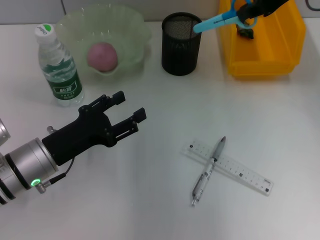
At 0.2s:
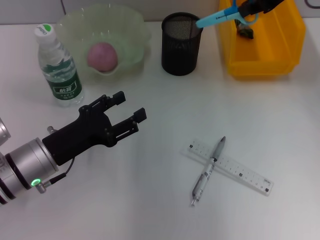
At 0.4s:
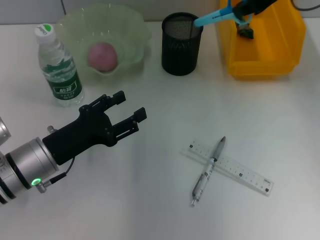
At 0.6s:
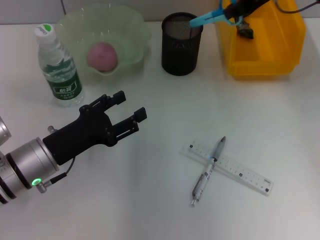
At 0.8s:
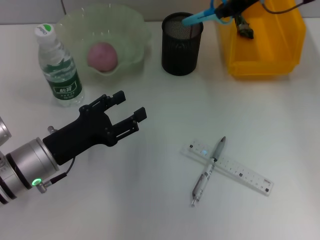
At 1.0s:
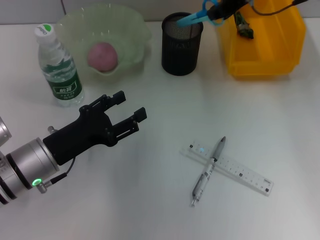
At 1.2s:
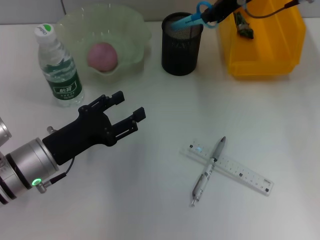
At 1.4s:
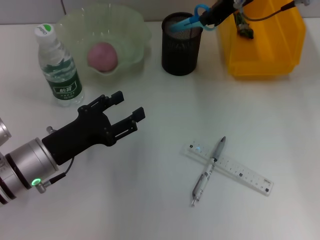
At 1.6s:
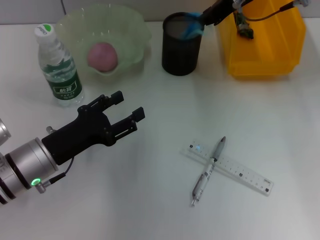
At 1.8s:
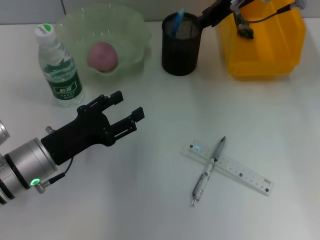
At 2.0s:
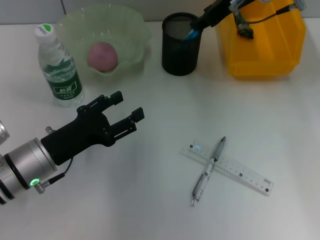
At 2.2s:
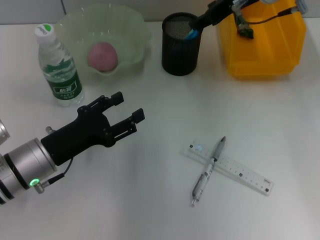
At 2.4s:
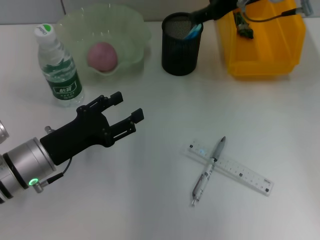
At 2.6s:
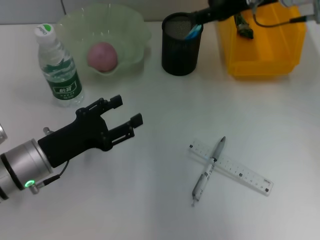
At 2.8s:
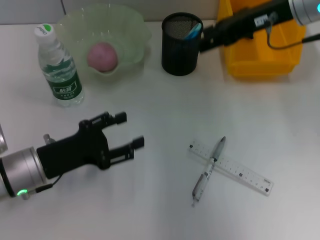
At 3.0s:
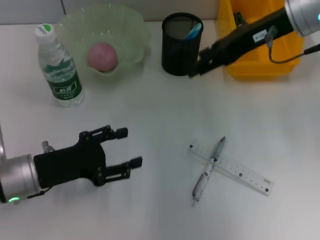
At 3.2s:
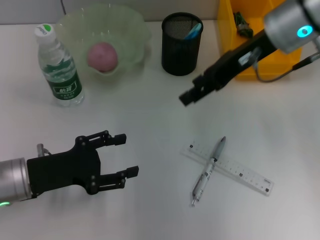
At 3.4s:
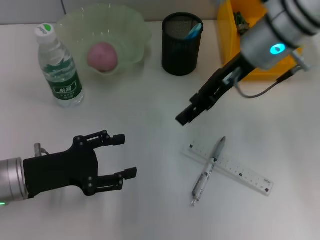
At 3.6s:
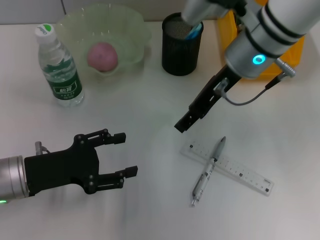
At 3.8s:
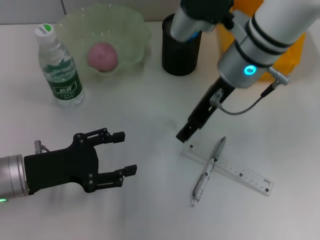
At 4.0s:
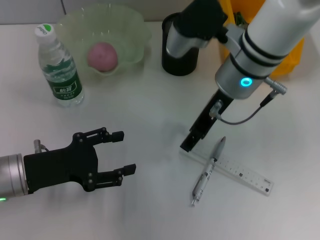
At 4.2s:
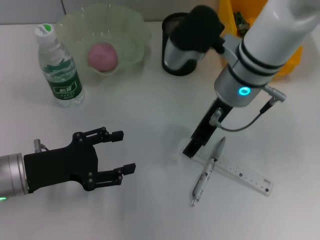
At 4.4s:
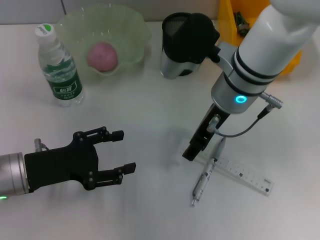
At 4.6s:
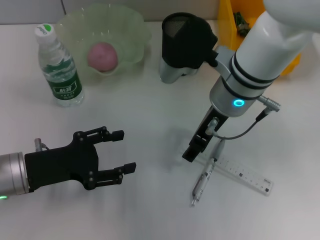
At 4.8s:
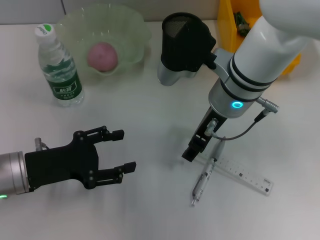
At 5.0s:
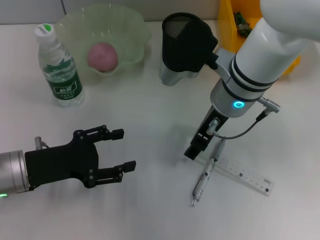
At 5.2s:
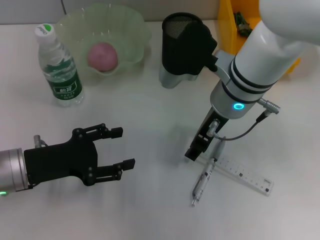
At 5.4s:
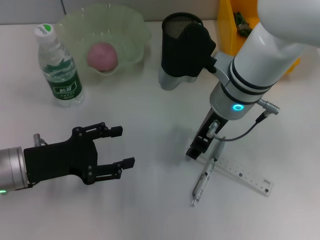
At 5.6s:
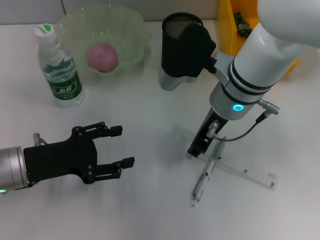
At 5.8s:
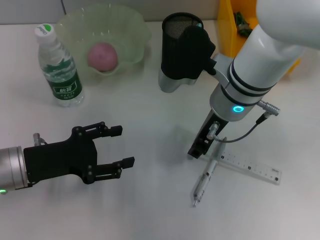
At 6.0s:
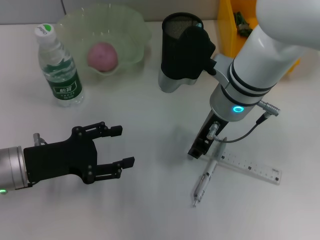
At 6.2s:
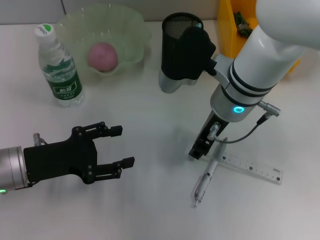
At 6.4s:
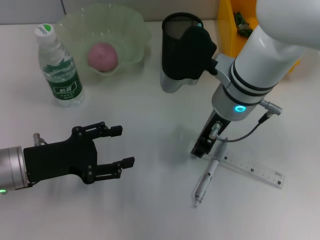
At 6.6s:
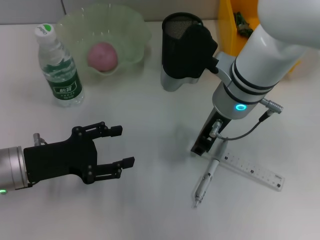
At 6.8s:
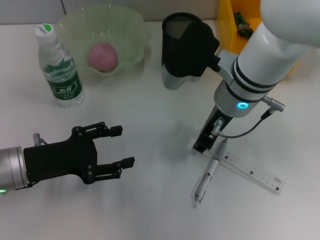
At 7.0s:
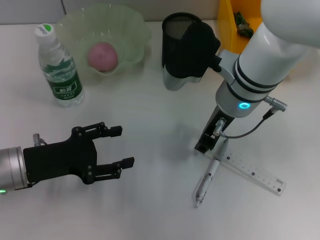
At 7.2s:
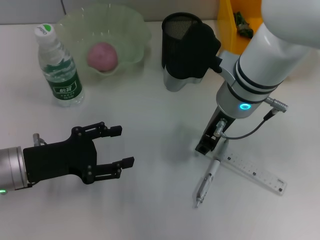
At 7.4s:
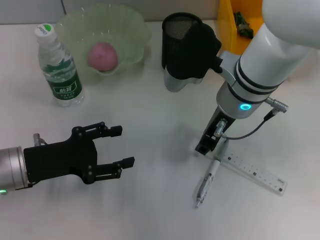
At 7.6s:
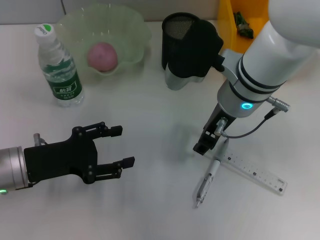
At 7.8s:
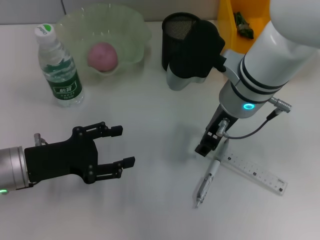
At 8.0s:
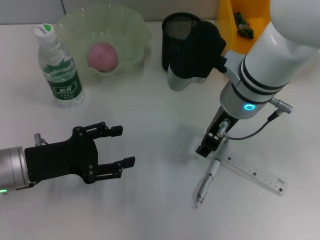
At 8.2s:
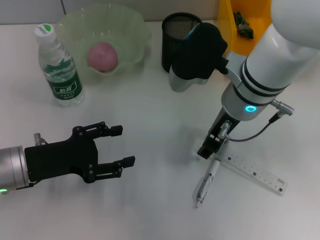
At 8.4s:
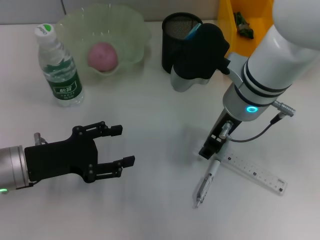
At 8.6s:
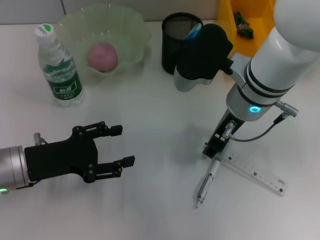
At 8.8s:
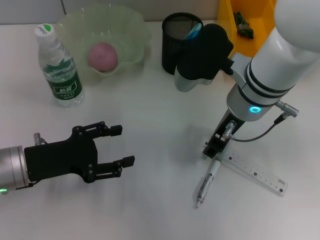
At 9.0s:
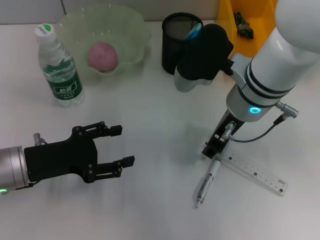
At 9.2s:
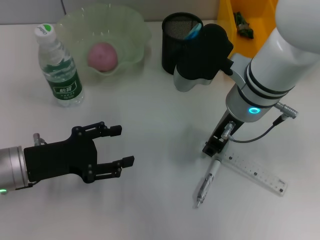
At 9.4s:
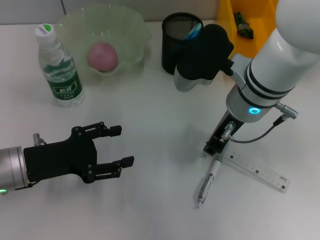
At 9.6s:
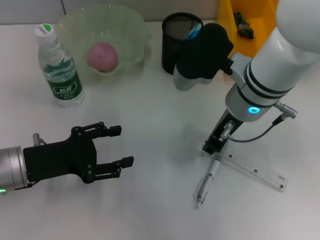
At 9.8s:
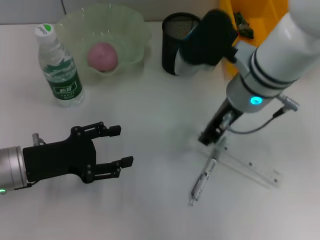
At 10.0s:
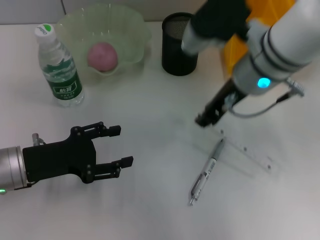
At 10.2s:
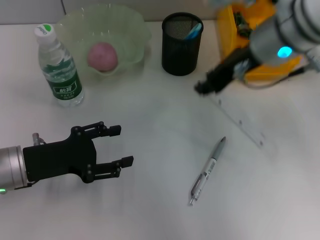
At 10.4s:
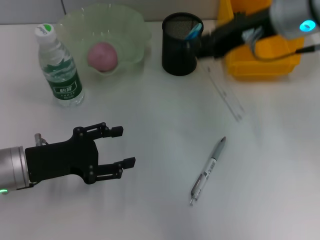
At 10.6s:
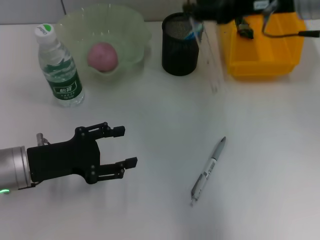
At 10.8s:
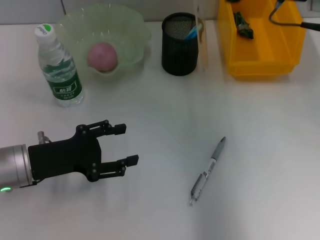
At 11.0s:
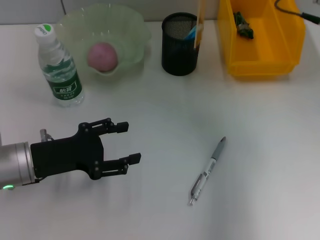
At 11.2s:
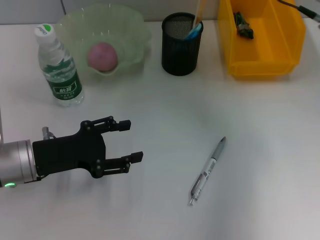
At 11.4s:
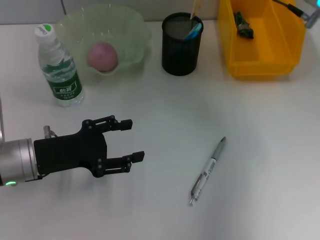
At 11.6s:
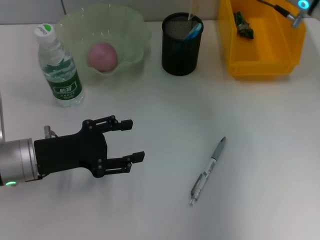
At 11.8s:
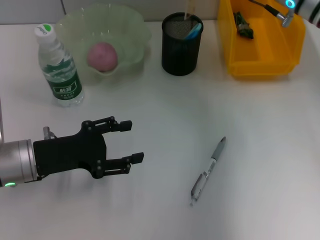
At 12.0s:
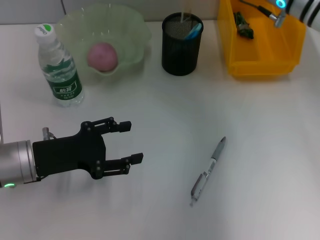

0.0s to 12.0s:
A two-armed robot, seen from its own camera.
Step, 0.0s to 2.4s: Place the blue scissors into the pen holder with the right hand.
Step, 2.6s to 9.4s: Grab the ruler with the right hand.
0.0s to 1.6s: The right gripper is displaced to the left and downward by about 10 cm.
1.6s to 3.0s: The right gripper travels backward by about 5 cm, and opens.
3.0s to 4.4s: The right gripper moves to the left and downward, approximately 15 cm.
4.4s to 6.0s: The right gripper closes up.
6.0s to 7.6s: Both grippers stay put.
7.6s to 9.0s: Neither gripper changes place.
9.0s to 10.4s: The right gripper moves upward and to the right, some 10 cm.
10.4s to 12.0s: The right gripper moves forward and downward, roughly 10 cm.

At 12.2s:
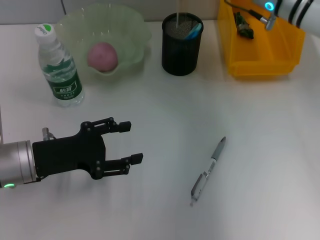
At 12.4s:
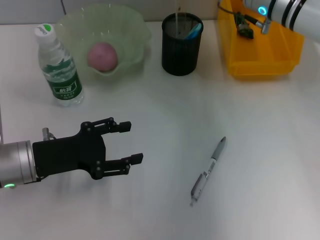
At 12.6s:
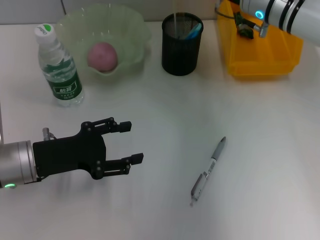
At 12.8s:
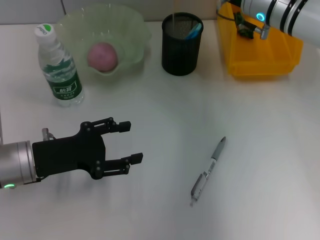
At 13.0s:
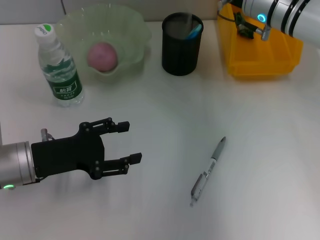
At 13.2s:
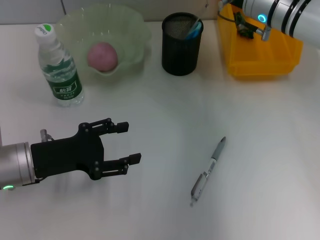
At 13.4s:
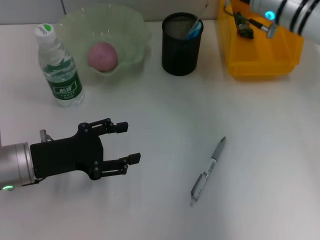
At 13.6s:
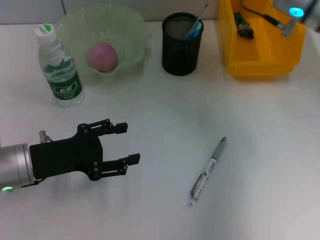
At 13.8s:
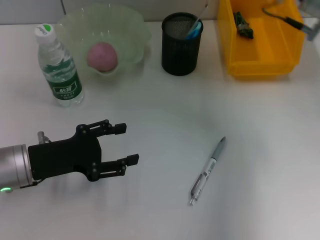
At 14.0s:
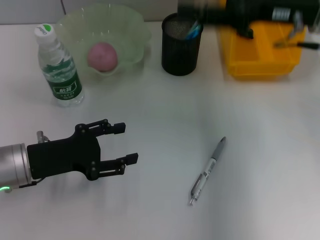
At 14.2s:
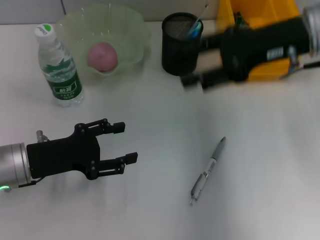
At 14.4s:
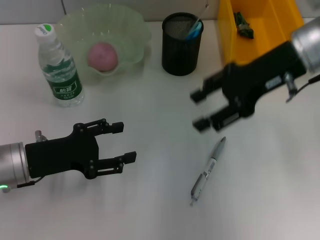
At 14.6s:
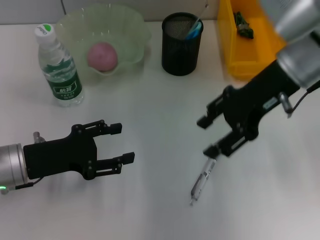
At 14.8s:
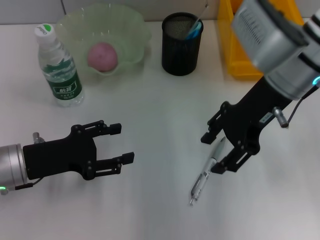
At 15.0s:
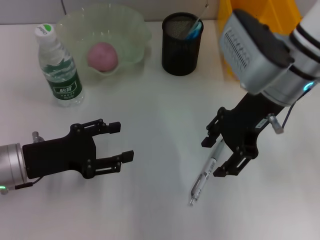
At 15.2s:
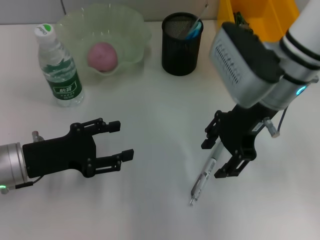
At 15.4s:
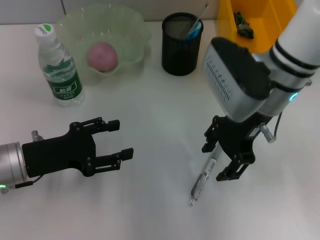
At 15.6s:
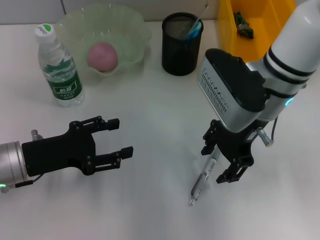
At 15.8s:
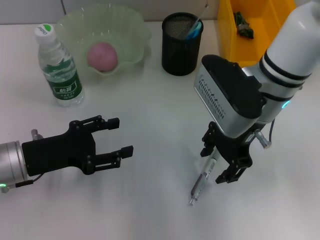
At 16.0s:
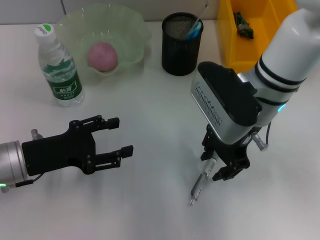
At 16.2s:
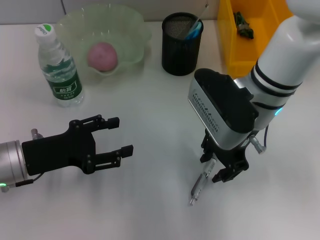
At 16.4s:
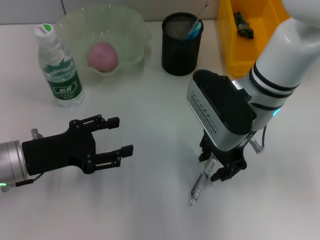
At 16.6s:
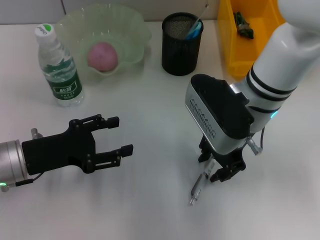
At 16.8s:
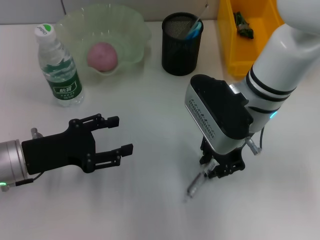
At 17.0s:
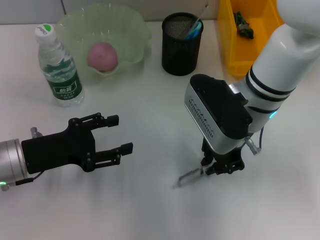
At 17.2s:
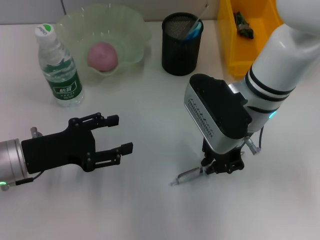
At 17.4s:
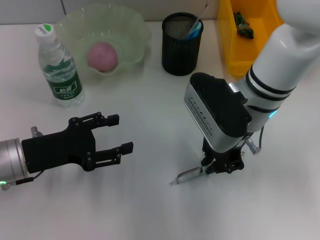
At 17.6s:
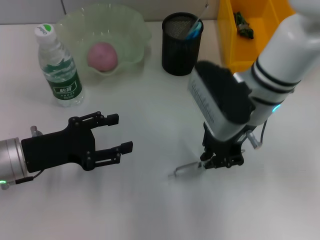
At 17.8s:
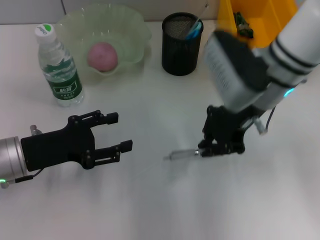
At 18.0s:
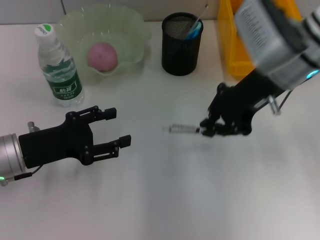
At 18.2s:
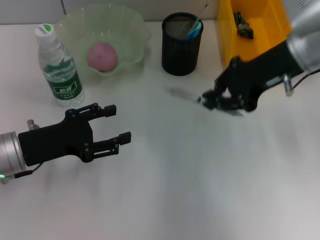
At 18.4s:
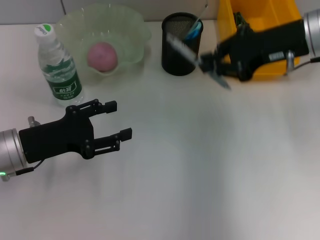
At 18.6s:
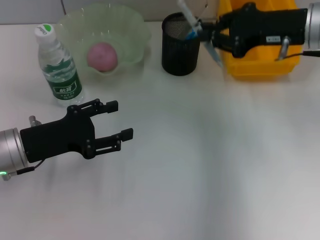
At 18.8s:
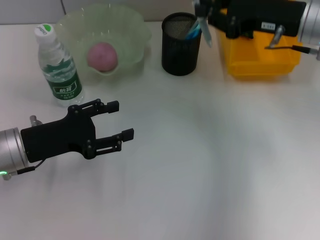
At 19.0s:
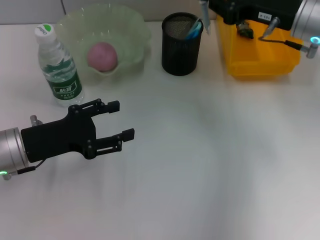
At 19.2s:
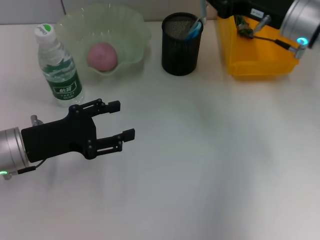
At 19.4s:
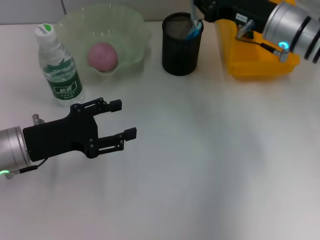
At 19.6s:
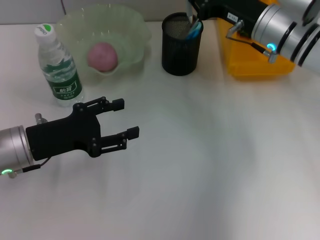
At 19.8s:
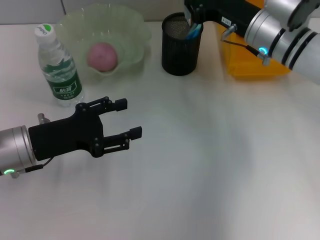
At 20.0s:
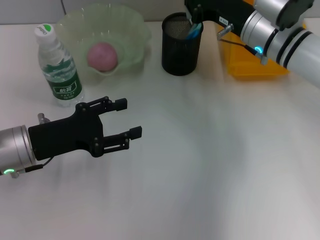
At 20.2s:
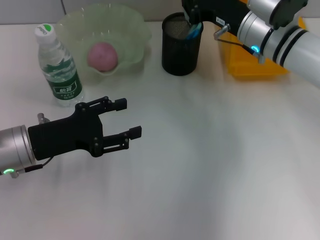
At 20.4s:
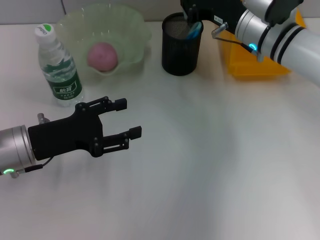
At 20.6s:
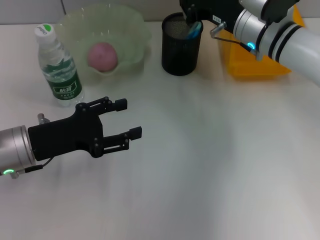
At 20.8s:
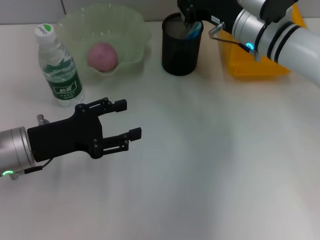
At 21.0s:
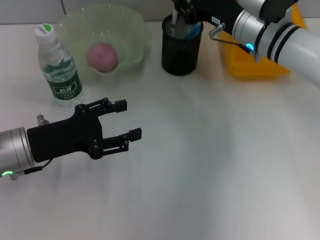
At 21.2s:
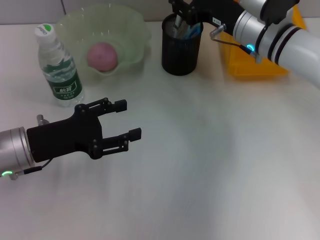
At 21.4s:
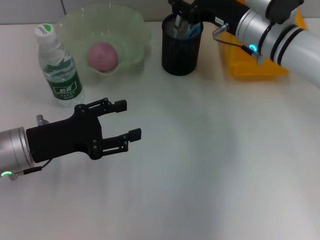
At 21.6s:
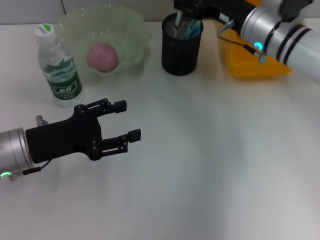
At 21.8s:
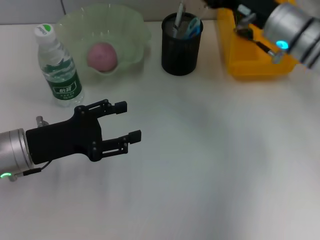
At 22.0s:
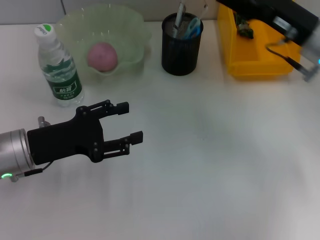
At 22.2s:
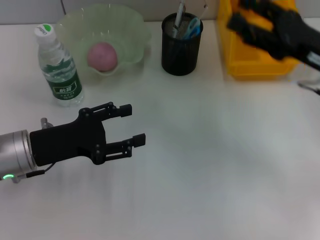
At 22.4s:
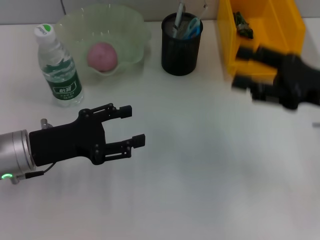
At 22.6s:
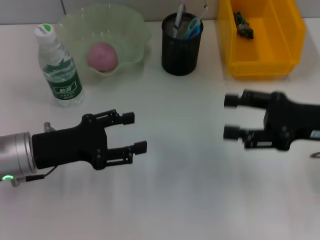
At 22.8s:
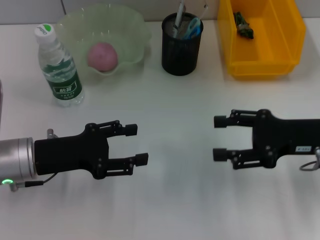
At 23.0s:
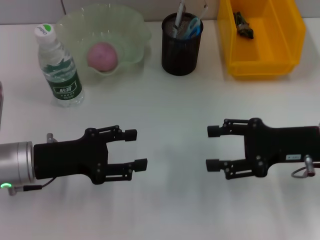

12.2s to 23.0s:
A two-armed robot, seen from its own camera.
Step, 14.2s to 17.2s: Grab the gray spring-action pen with the right hand.
Step, 17.4s to 22.2s: Place the gray spring-action pen into the pen holder with the right hand.
12.2s to 13.8s: The right gripper moves backward, some 5 cm, and opens its fingers.
13.8s to 15.2s: The right gripper goes approximately 10 cm to the left.
15.2s to 16.8s: The right gripper moves approximately 5 cm, and closes up.
16.8s to 18.4s: The right gripper travels to the right and upward by some 15 cm, and closes its fingers.
18.4s to 20.0s: The right gripper goes some 10 cm downward and to the left.
20.0s to 21.4s: The right gripper opens.
21.4s to 23.0s: The right gripper heads backward and to the right, covering roughly 15 cm, and opens its fingers.
